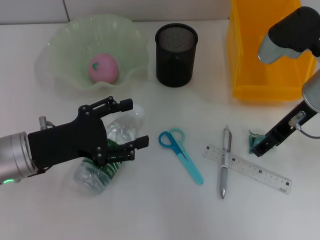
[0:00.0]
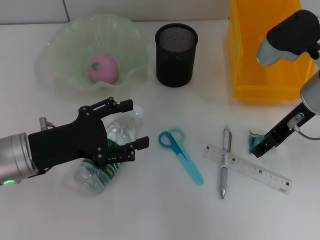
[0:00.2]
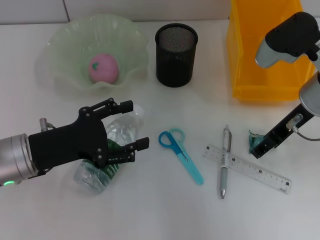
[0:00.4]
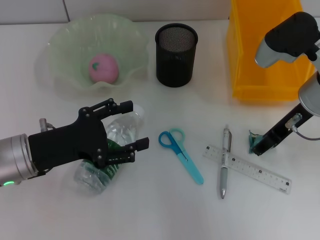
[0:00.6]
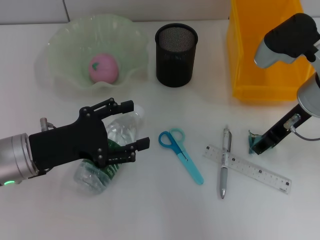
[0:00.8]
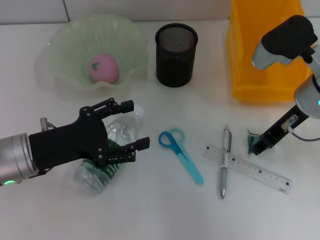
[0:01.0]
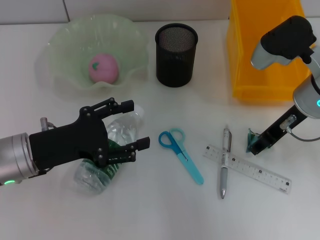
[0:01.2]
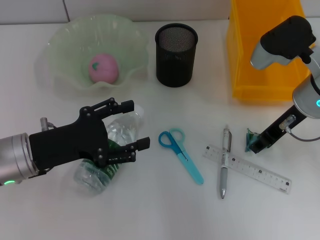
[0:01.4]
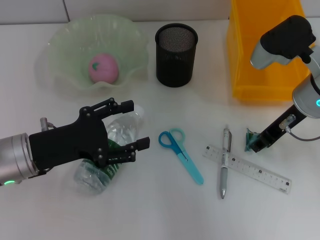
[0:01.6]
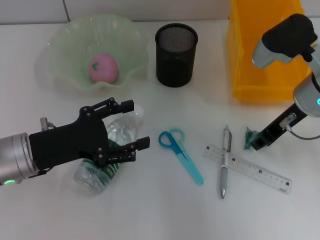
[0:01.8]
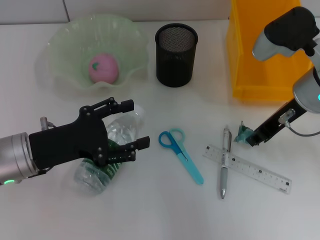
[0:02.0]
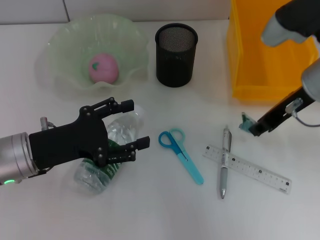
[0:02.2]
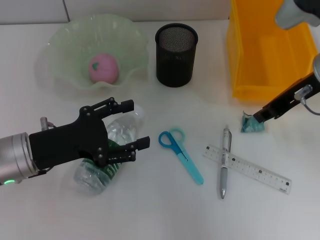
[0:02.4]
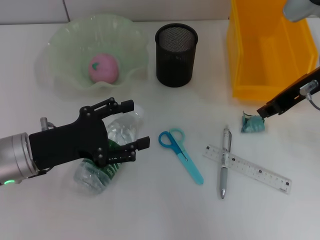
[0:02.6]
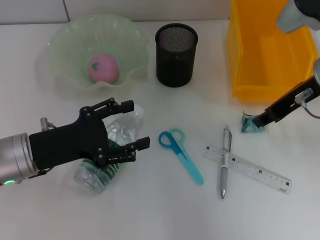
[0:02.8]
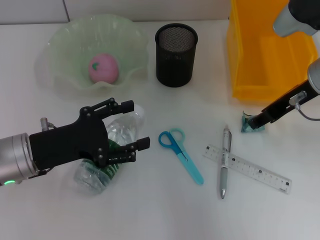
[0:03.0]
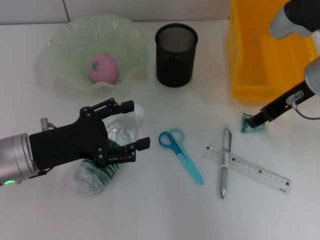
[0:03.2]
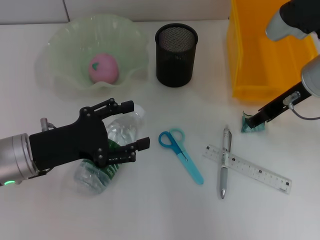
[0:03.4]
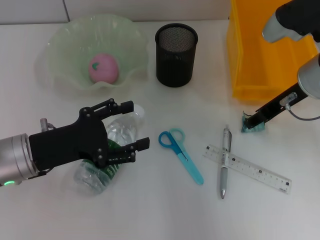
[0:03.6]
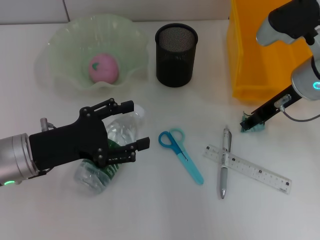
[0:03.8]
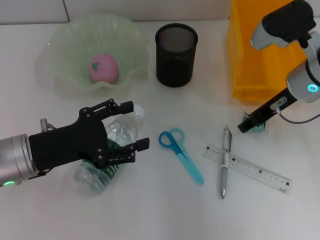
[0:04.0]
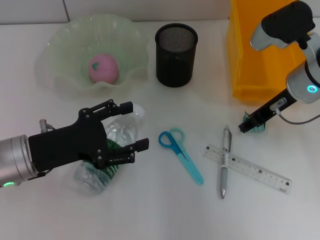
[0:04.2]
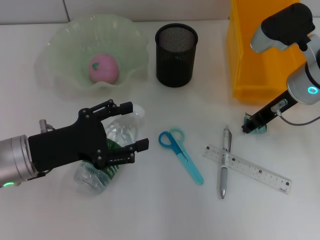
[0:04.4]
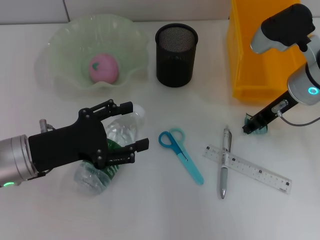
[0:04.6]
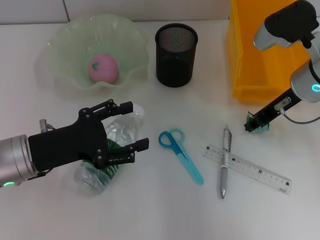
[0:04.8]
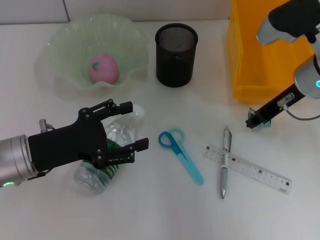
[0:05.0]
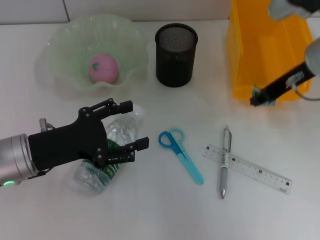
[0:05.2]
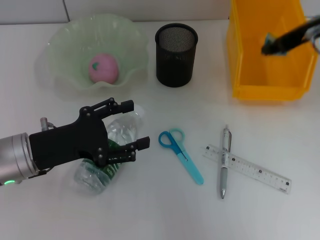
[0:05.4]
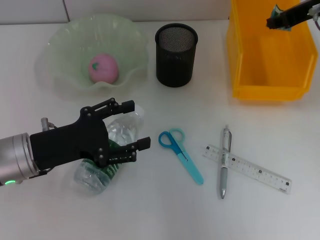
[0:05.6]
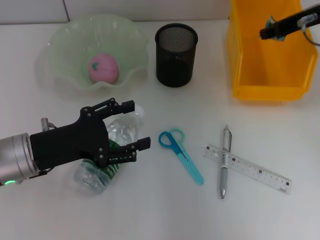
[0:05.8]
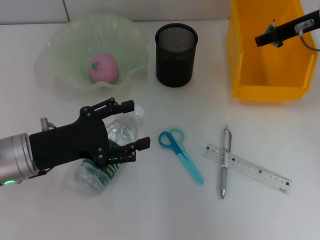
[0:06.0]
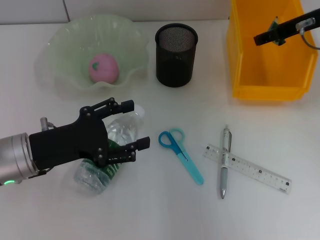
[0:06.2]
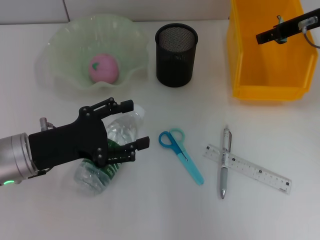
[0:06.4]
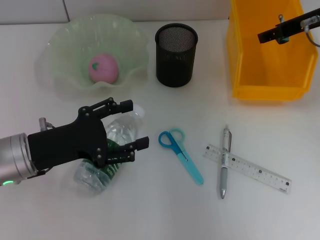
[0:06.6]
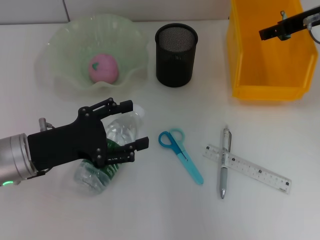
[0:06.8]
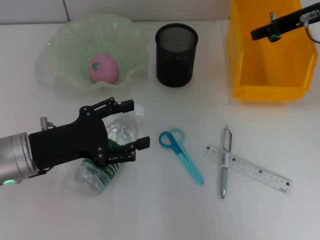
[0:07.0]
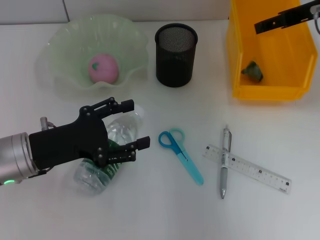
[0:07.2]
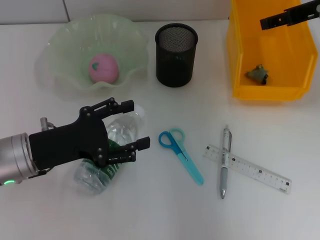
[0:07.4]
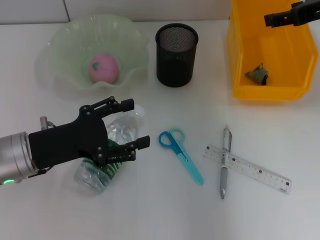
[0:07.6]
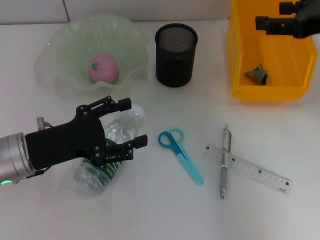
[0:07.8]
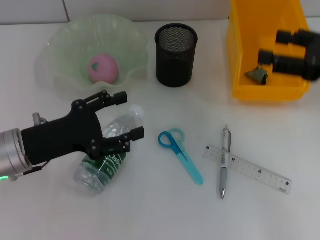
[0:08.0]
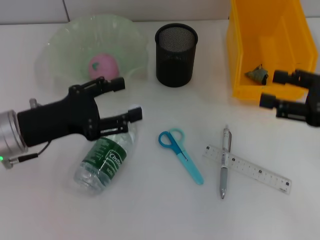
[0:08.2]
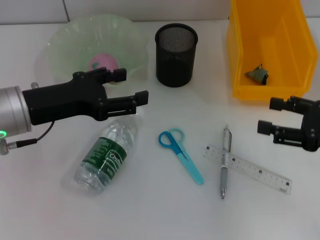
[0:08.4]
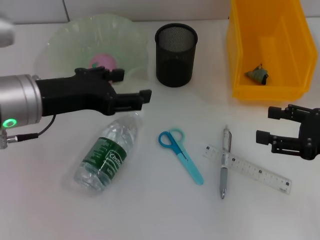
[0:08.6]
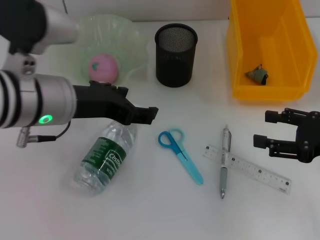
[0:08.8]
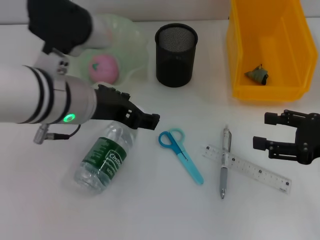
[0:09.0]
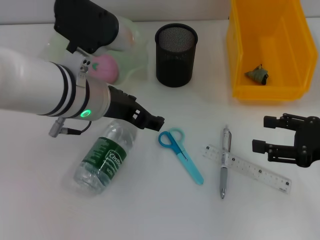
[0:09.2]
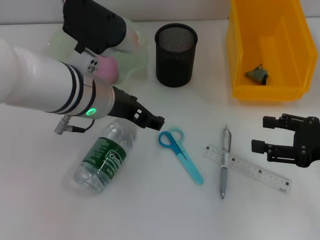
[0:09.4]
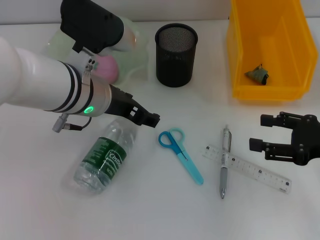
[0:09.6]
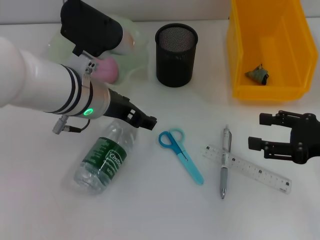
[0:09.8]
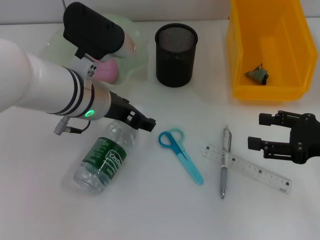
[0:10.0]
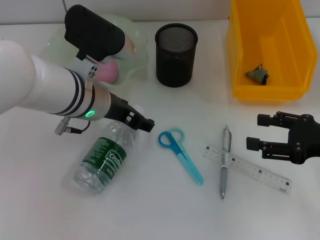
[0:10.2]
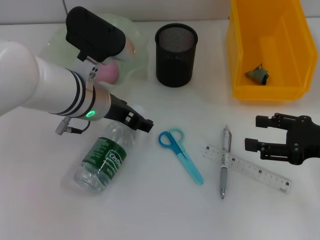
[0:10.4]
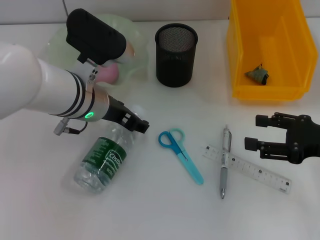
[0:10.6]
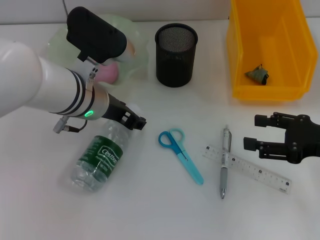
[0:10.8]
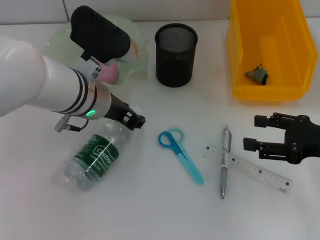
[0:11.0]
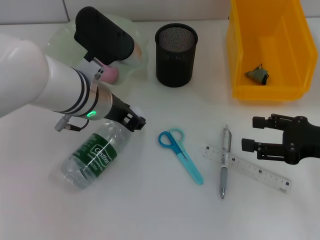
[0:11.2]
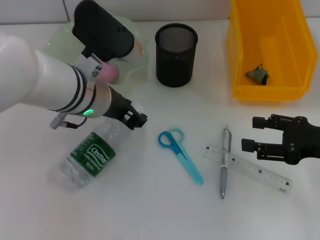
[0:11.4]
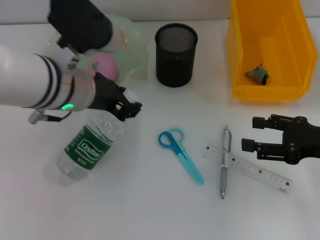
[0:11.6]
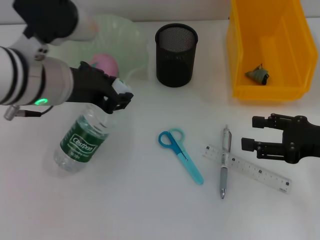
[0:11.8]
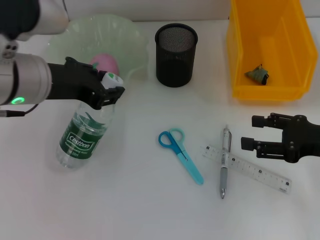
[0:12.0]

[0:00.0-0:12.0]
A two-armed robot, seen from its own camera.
Step, 0:00.0 to 0:04.6: Grab the plastic with the right hand.
Step, 0:04.8 to 0:07.4: Place the plastic into the trash can with the right hand.
Step, 0:07.8 to 0:11.0: Grab the water bottle with the left hand.
0:00.0 to 0:01.6: The right gripper closes its fingers.
0:01.6 to 0:04.4: The grippers stay close to where they were, moving slightly.
0:04.4 to 0:06.0: The right gripper heads upward, covering roughly 5 cm.
0:06.0 to 0:07.6: The right gripper shifts by about 5 cm, and opens.
0:07.6 to 0:09.0: The right gripper is displaced downward and backward by approximately 20 cm. The left gripper goes roughly 15 cm to the right and upward.
0:09.0 to 0:10.4: The left gripper travels downward by about 5 cm.
0:10.4 to 0:12.0: The left gripper is displaced upward and to the left by approximately 10 cm, and closes up.

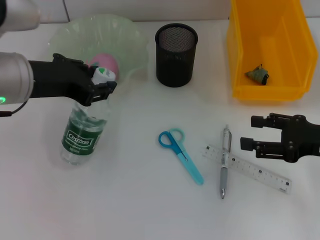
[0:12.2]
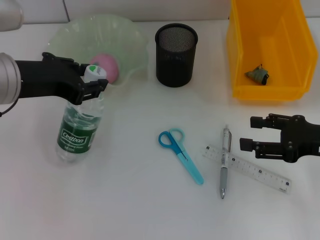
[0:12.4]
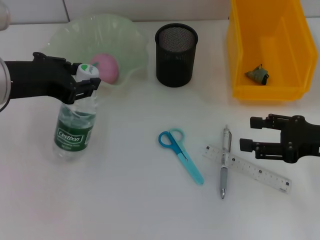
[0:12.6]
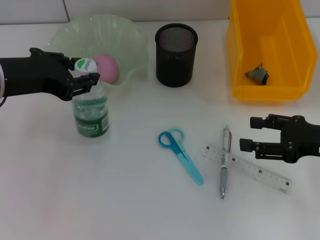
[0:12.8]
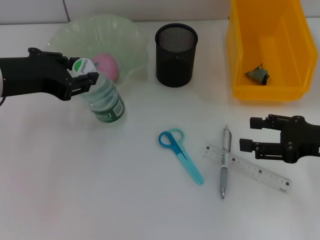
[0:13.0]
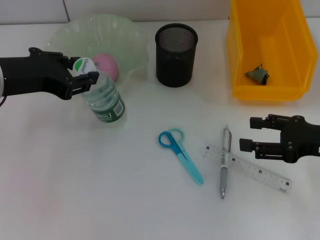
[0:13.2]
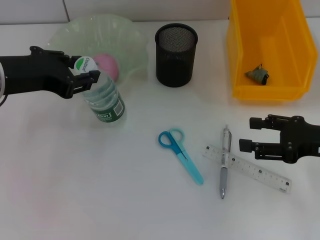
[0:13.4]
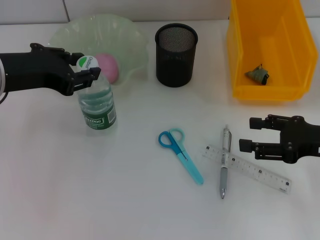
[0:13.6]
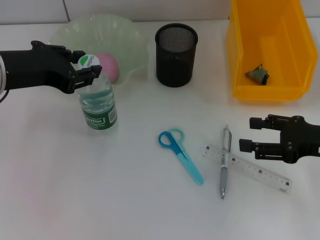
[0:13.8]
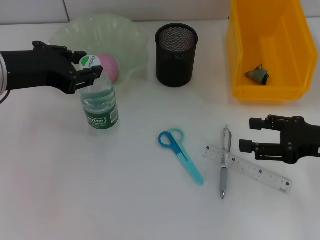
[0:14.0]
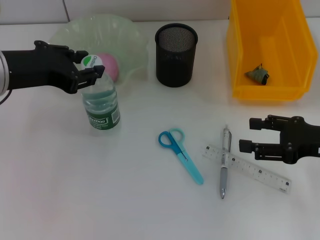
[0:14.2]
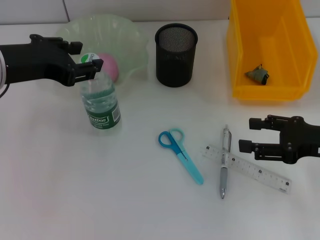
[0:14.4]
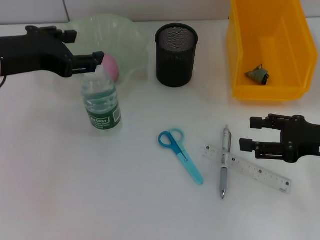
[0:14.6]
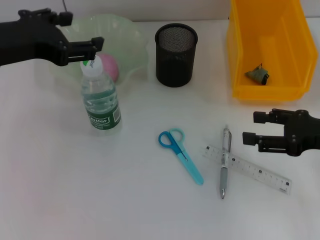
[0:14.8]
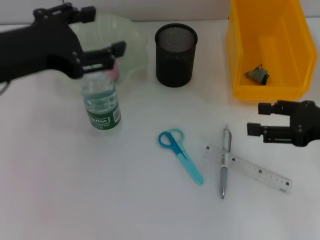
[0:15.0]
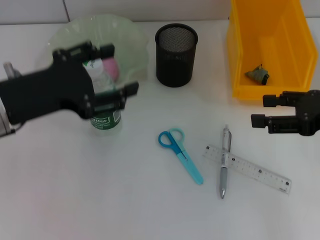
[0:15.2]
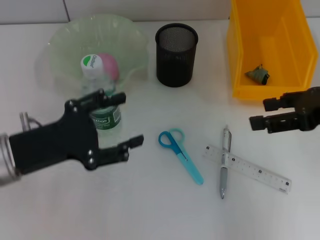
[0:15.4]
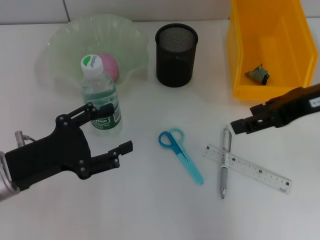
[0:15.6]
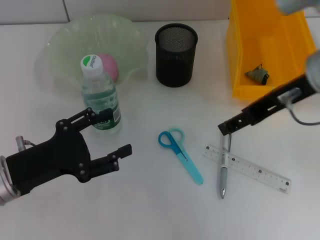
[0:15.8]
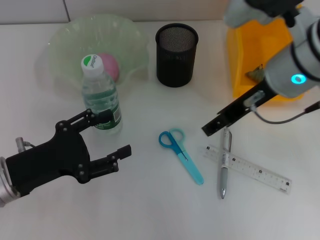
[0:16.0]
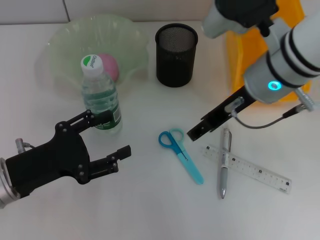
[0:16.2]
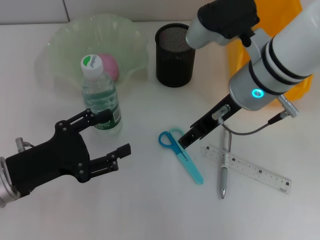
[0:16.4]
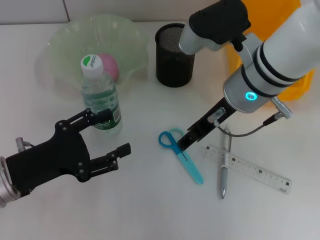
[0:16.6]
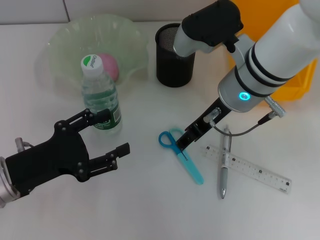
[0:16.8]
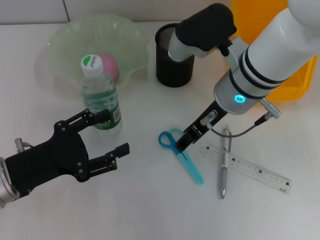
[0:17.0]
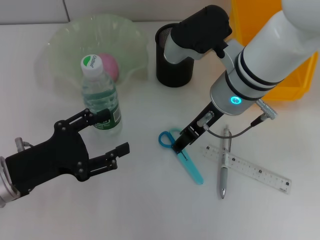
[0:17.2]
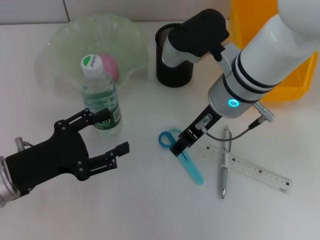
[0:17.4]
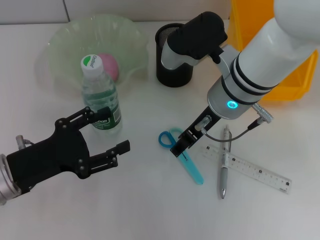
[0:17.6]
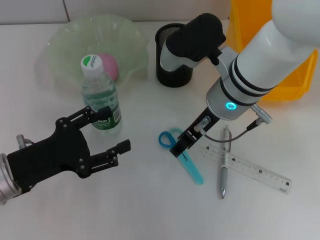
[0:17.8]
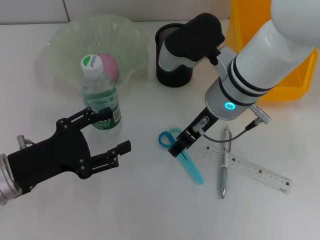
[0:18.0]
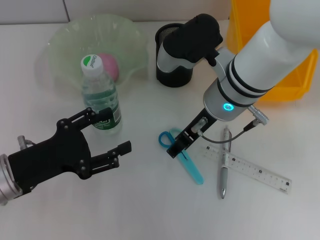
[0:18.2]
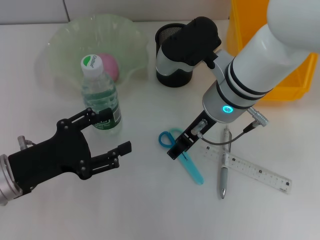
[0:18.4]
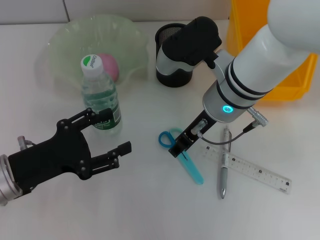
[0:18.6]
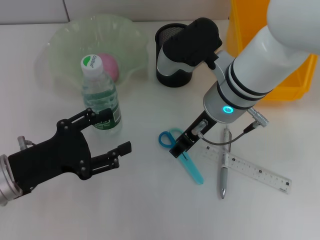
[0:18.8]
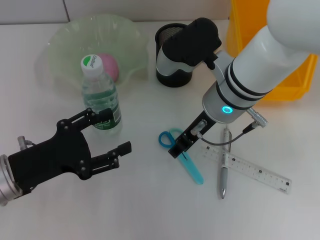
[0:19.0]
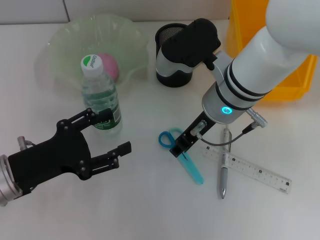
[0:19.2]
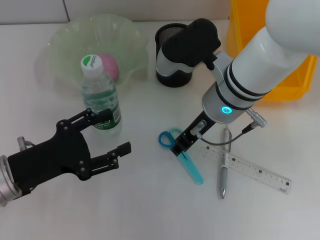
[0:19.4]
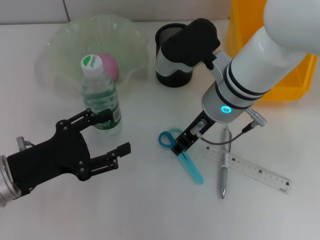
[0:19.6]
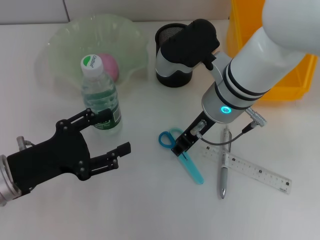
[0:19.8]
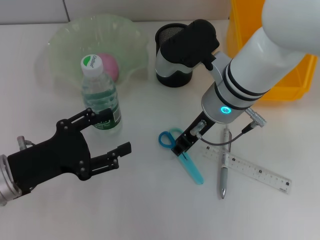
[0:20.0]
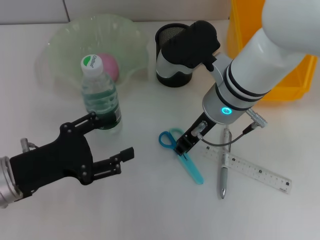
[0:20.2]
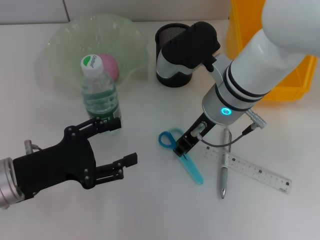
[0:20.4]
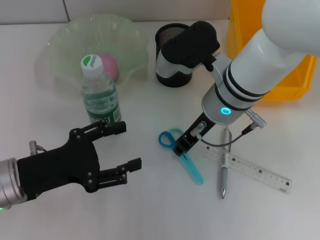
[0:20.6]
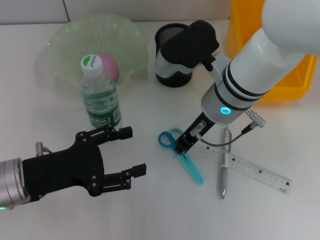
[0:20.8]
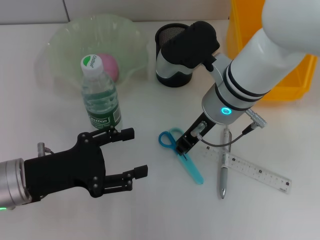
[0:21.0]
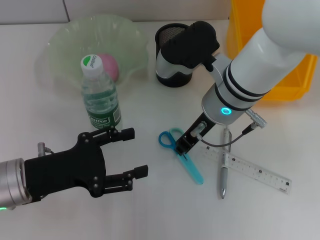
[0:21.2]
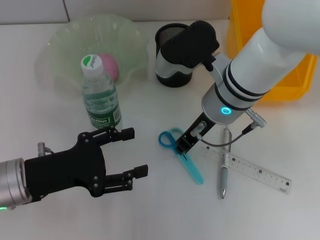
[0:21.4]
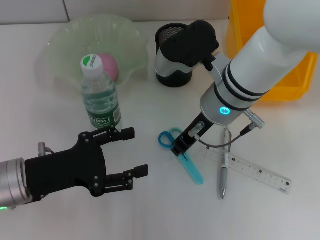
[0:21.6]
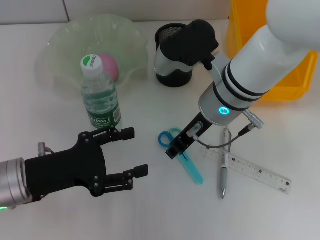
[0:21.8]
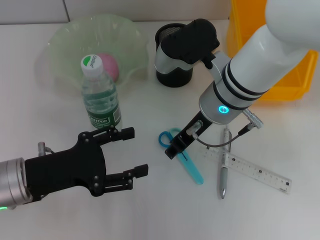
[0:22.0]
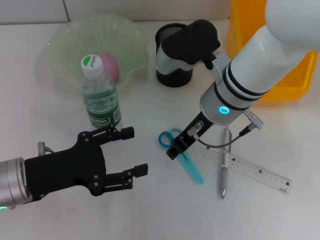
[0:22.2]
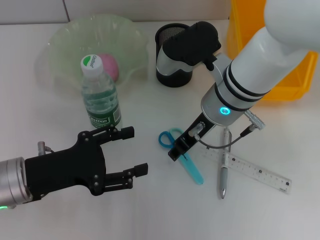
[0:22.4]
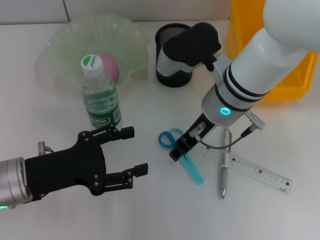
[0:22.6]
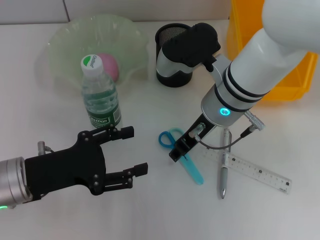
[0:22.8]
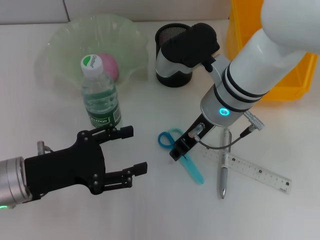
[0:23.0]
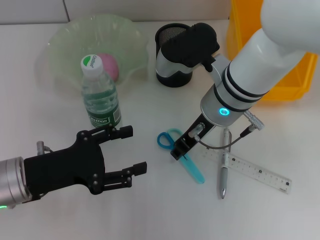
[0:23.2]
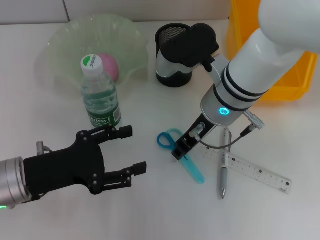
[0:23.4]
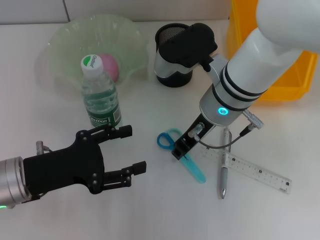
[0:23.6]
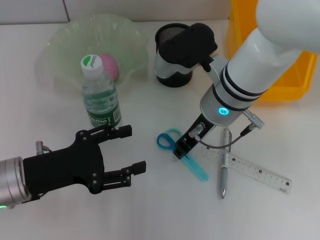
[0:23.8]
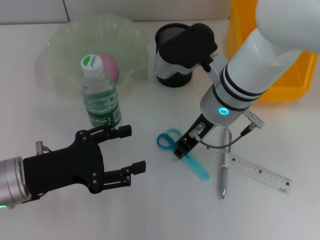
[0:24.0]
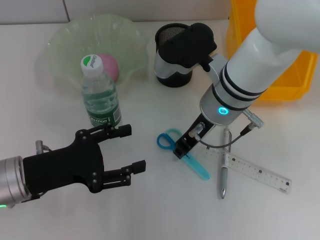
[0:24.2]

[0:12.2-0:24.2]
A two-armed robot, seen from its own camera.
Step, 0:12.2 to 0:14.8: Place the water bottle on the table with the left hand.
0:12.2 to 0:13.8: The grippers stay close to where they were, moving slightly.
0:13.8 to 0:15.2: The left gripper opens its fingers. The right gripper shifts roughly 5 cm upward.
0:15.2 to 0:16.6: The right gripper shifts some 20 cm to the left; the left gripper heads downward, covering about 10 cm.
0:16.6 to 0:18.2: The grippers stay close to where they were, moving slightly.
0:18.2 to 0:19.8: The right gripper closes up.
0:19.8 to 0:21.2: The right gripper closes its fingers.
0:21.2 to 0:22.6: The right gripper opens up.
0:22.6 to 0:24.2: The two grippers keep their place.
